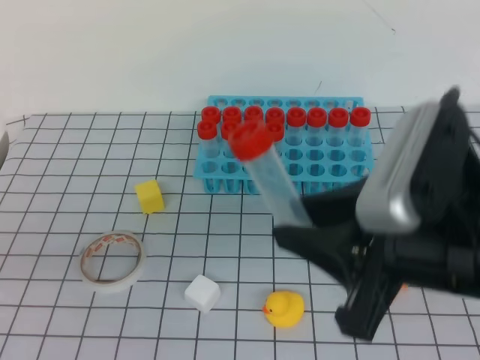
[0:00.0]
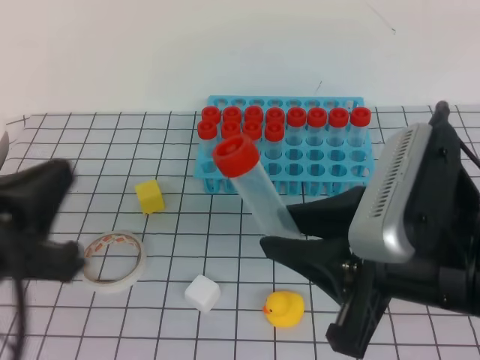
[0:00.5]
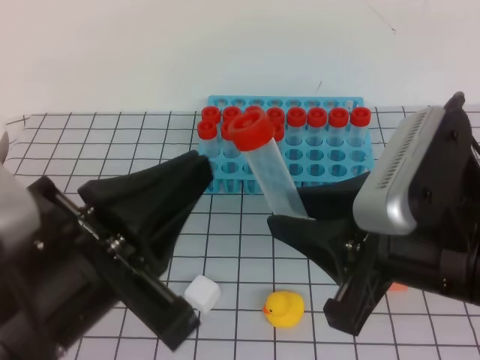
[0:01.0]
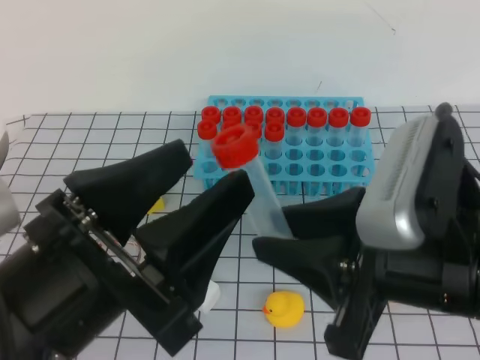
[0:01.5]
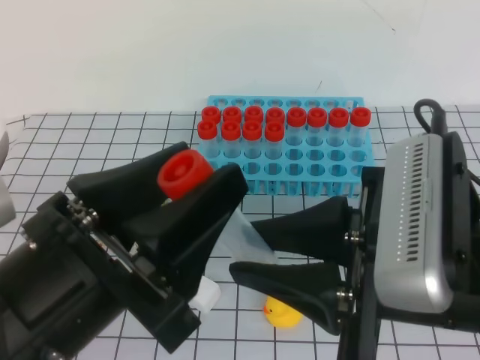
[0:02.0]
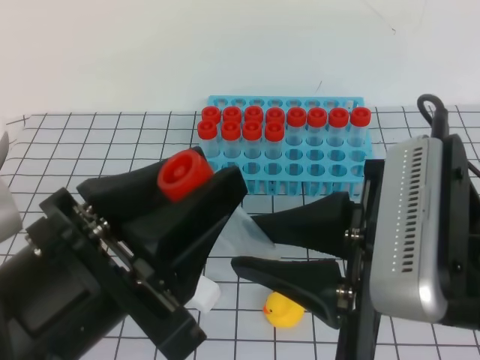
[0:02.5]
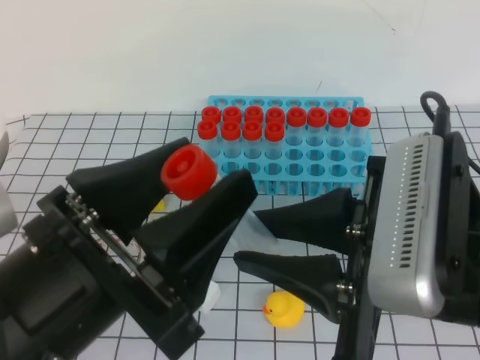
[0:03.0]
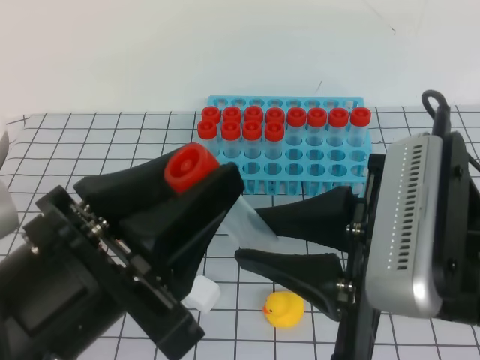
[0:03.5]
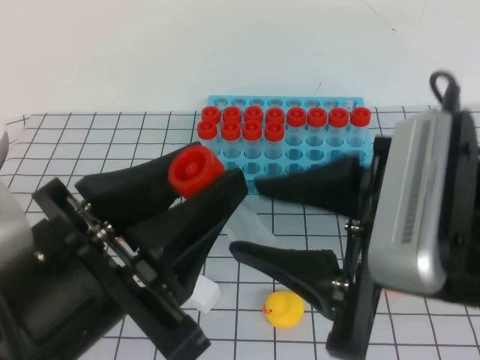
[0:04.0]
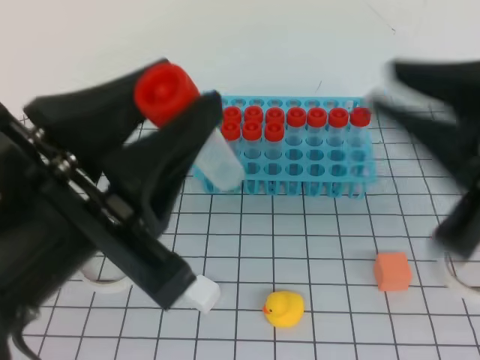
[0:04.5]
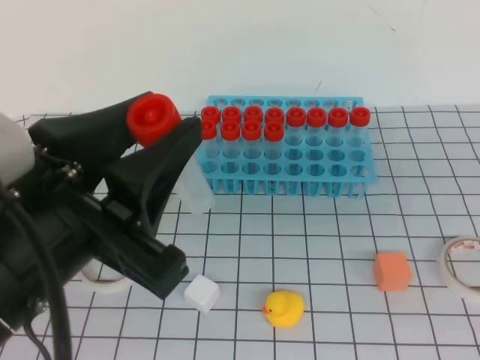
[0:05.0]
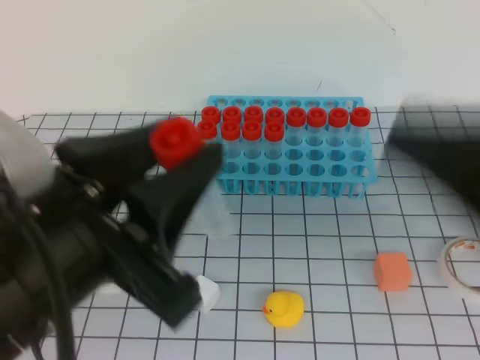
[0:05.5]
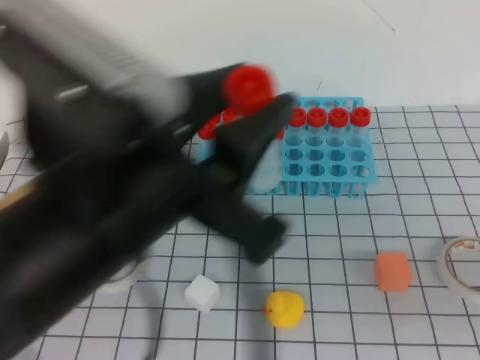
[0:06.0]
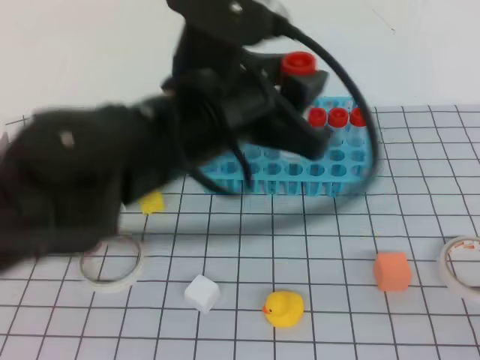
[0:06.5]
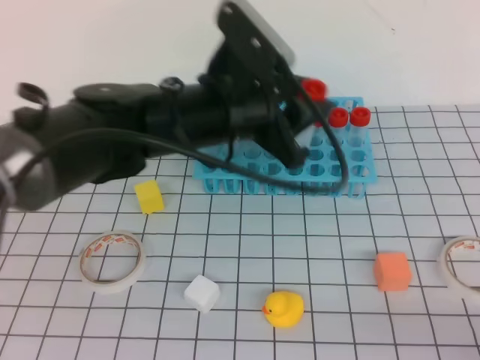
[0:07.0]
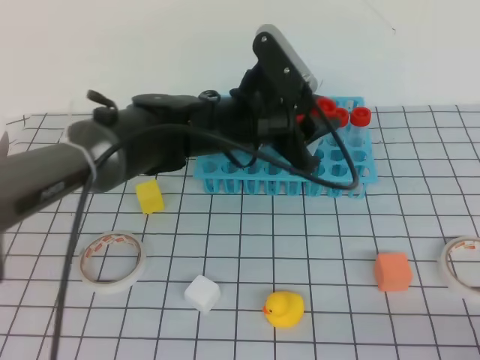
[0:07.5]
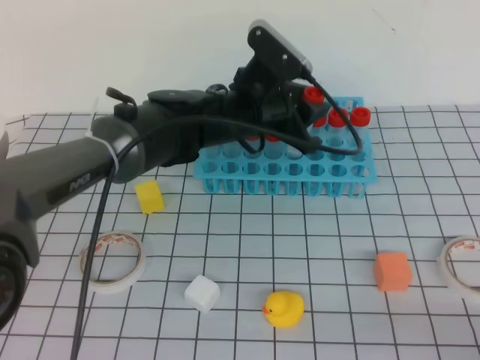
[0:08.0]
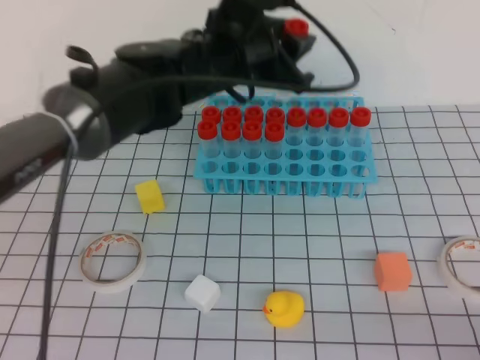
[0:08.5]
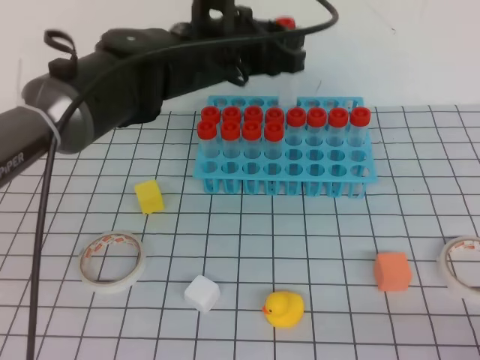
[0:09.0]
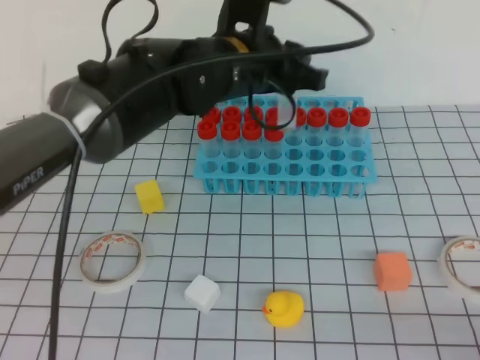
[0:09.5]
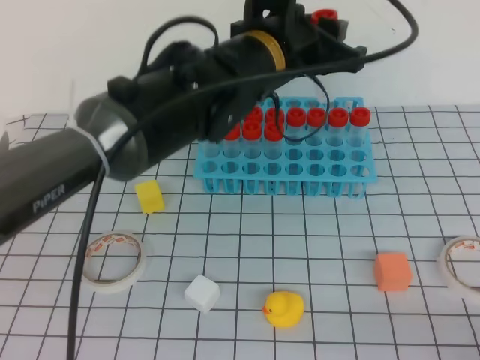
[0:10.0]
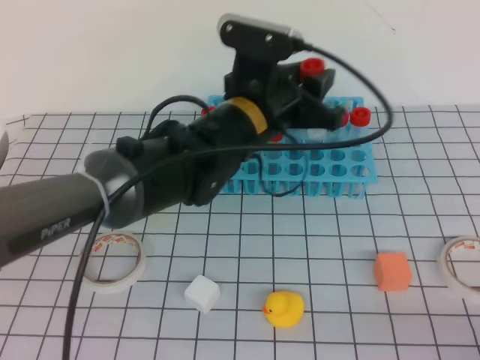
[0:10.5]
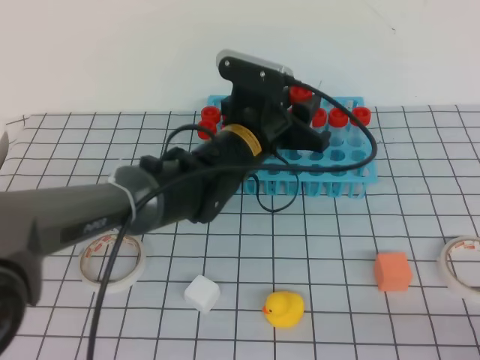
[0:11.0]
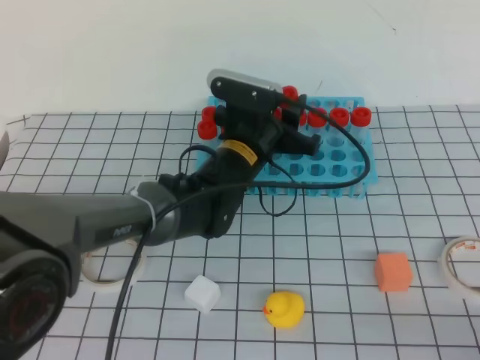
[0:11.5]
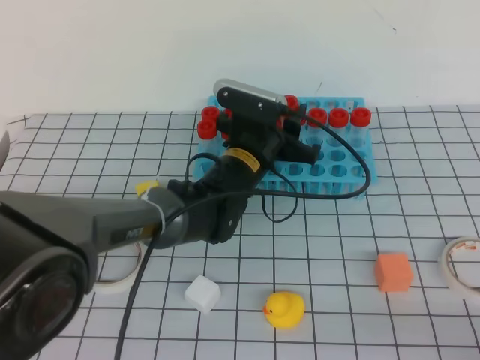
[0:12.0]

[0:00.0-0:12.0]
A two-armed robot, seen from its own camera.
0:00.0 to 0:02.0: The left gripper travels to the right and upward by approximately 15 cm, and opens its fingers.
0:02.0 to 0:04.0: The right gripper opens.
0:04.0 to 0:06.0: The left gripper shifts by roughly 5 cm. Meanwhile the right gripper shifts approximately 10 cm to the right and backward, and closes.
0:06.0 to 0:08.0: The left gripper is displaced forward and downward by about 30 cm. Meanwhile the right gripper shifts roughly 10 cm downward and to the right.
0:08.0 to 0:10.0: The left gripper goes some 10 cm upward.
0:10.0 to 0:12.0: The left gripper travels downward by approximately 15 cm.

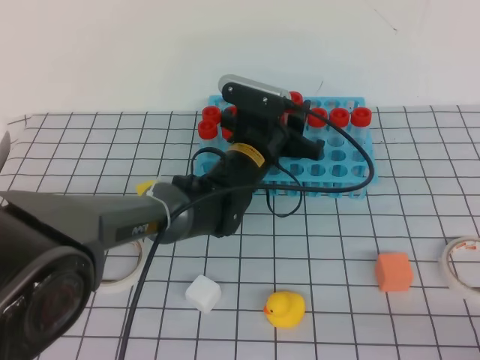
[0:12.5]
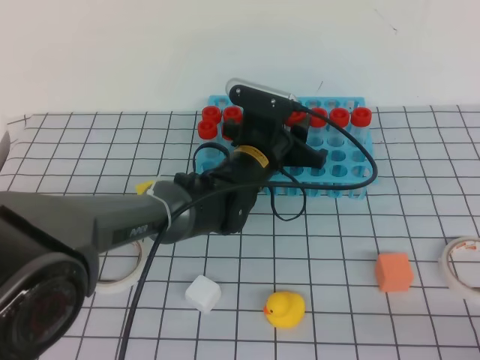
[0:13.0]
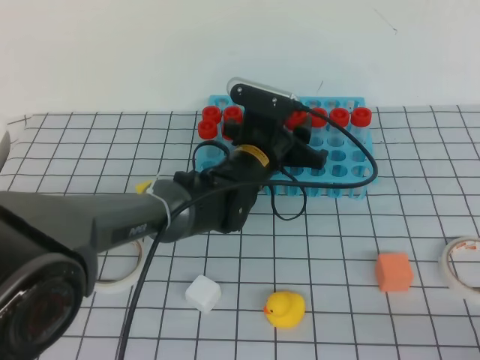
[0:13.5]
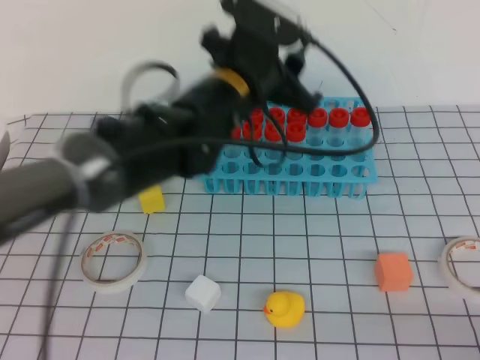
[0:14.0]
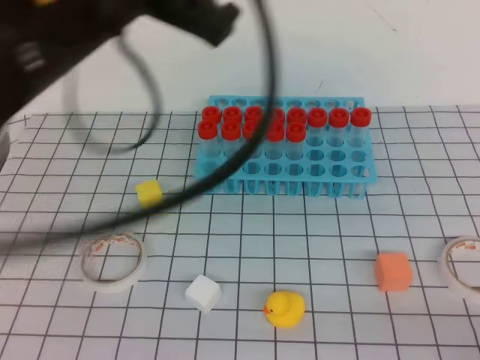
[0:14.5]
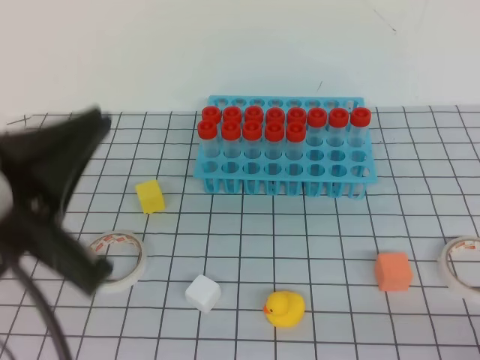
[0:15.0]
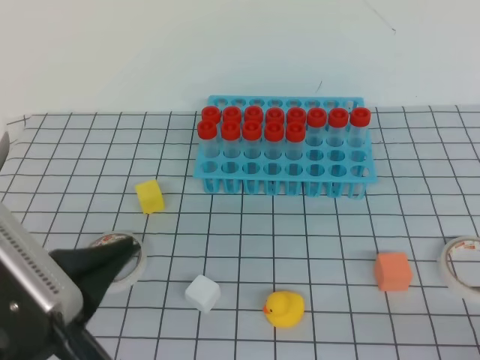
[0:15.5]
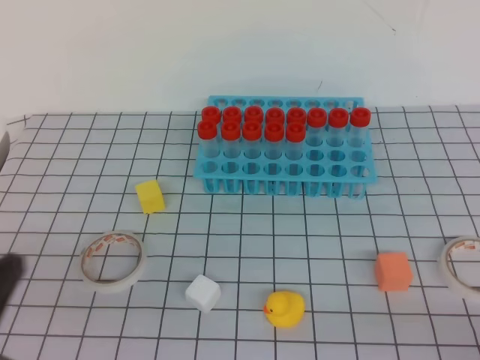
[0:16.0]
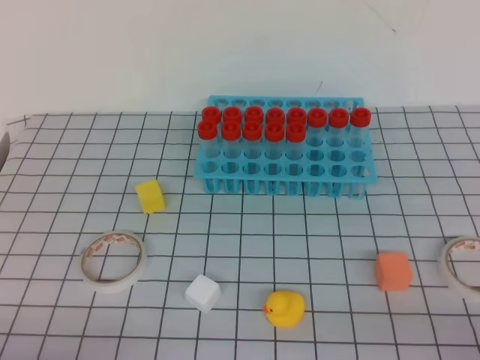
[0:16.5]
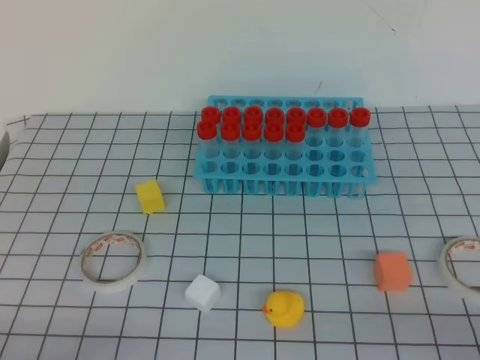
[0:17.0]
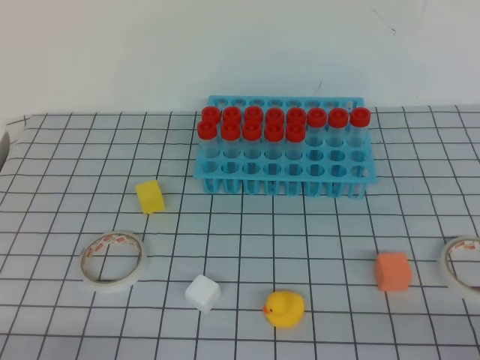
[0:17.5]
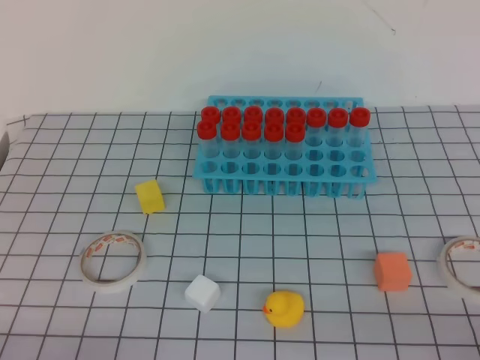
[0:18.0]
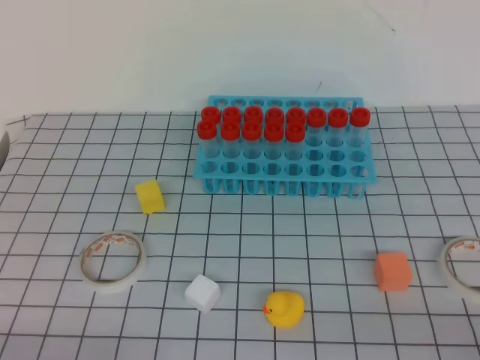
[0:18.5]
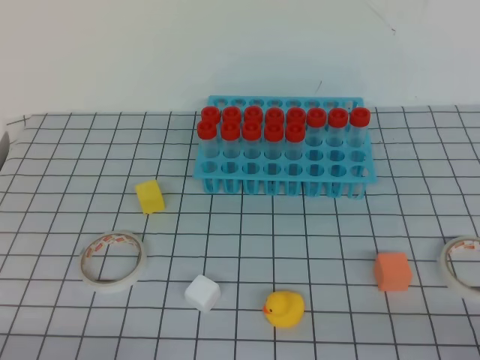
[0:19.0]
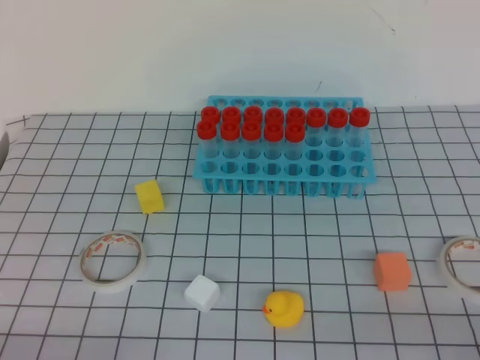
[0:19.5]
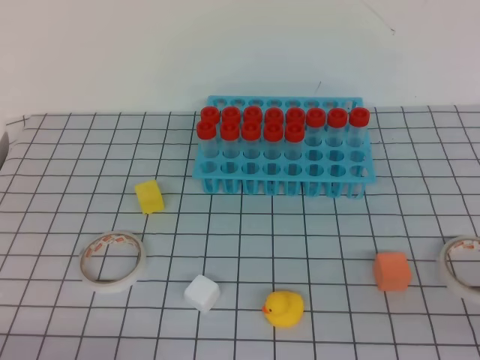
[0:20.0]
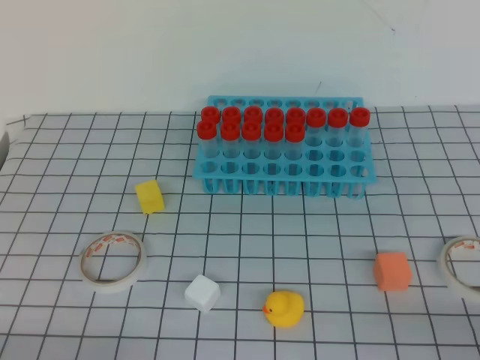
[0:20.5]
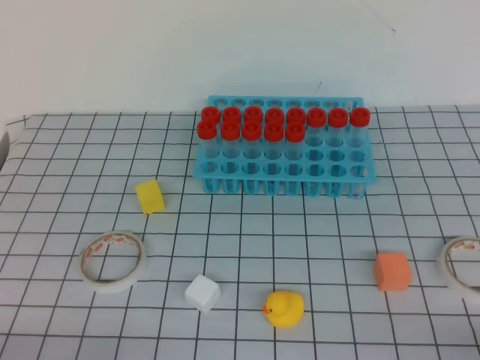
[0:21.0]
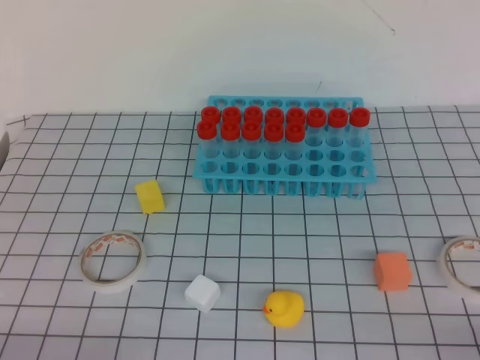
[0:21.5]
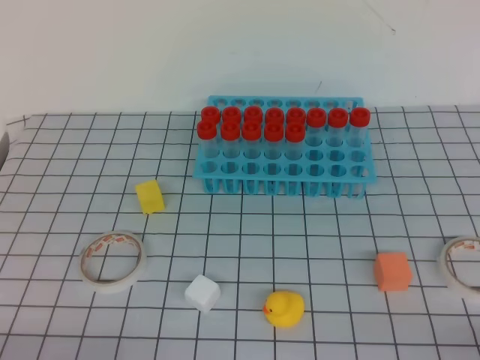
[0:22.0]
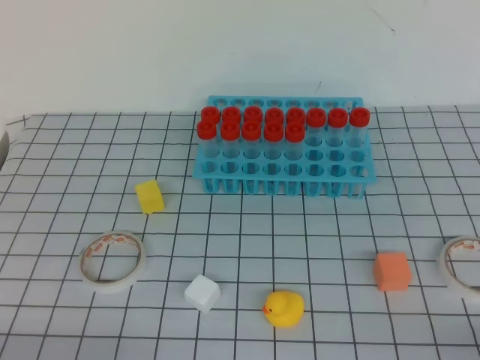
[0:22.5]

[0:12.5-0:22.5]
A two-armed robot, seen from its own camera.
0:12.5 to 0:14.5: The left gripper is displaced upward, backward and to the left by about 35 cm, and closes its fingers.
0:14.5 to 0:16.5: The left gripper is displaced downward, backward and to the left by approximately 35 cm.
